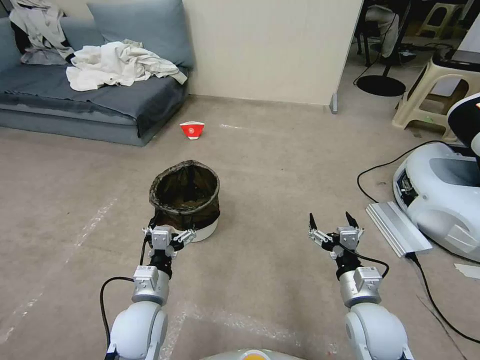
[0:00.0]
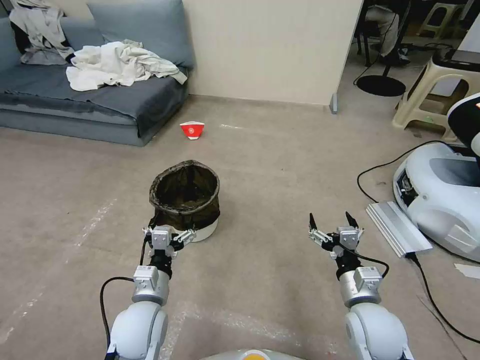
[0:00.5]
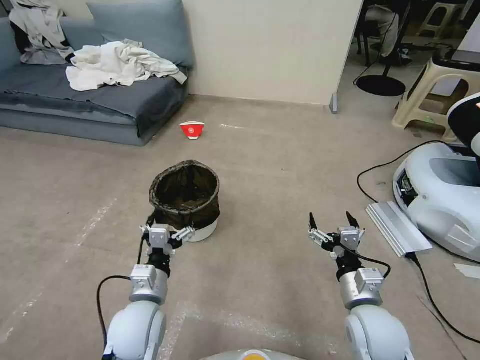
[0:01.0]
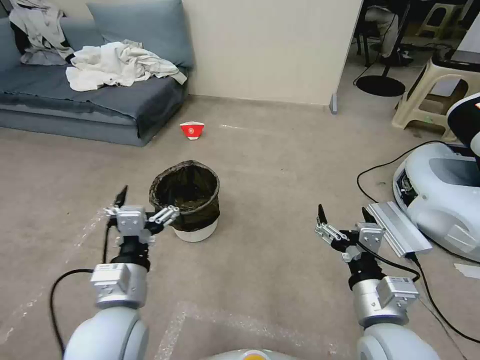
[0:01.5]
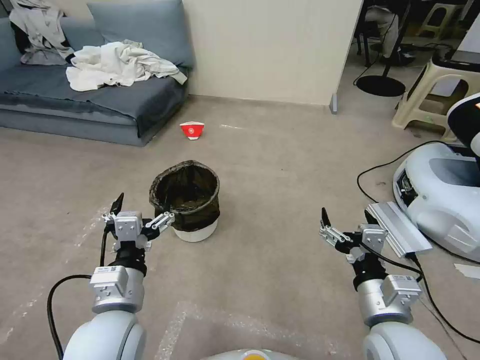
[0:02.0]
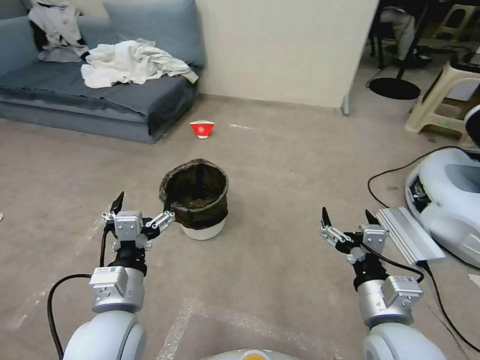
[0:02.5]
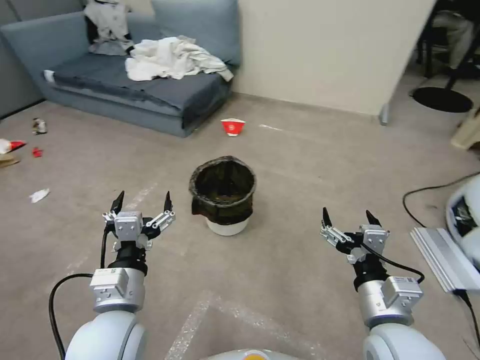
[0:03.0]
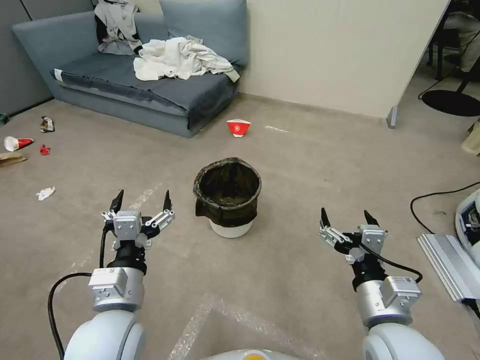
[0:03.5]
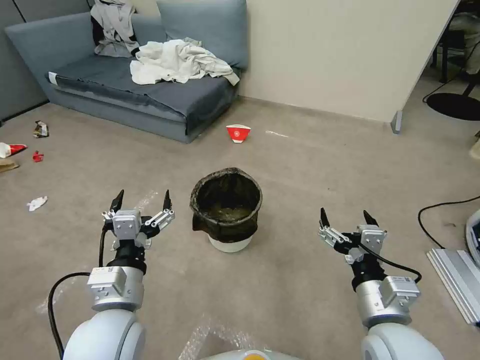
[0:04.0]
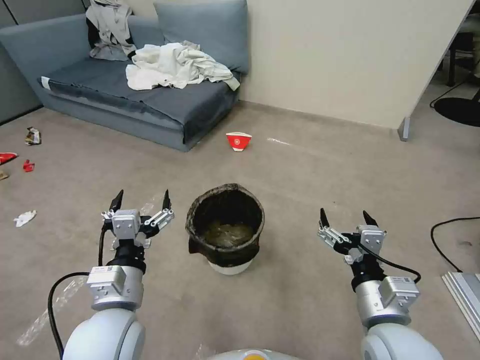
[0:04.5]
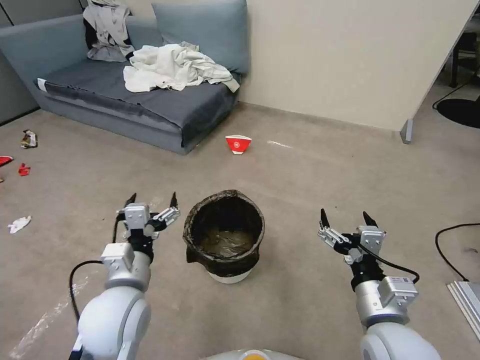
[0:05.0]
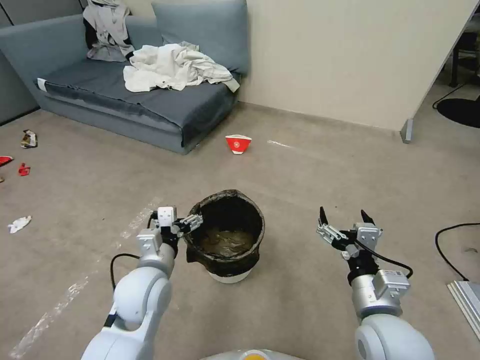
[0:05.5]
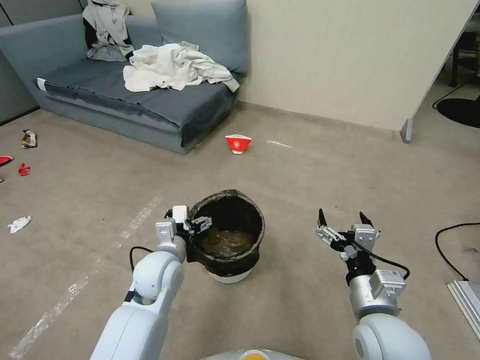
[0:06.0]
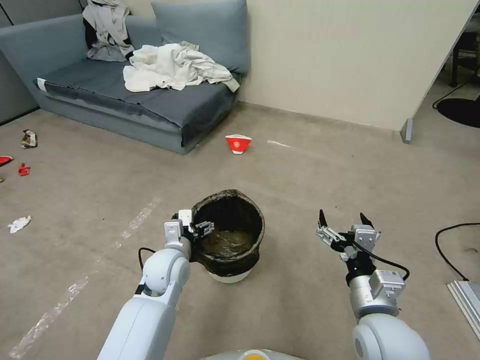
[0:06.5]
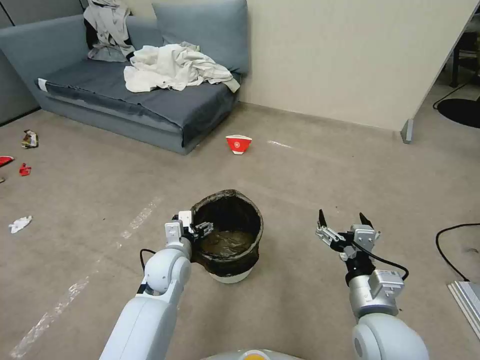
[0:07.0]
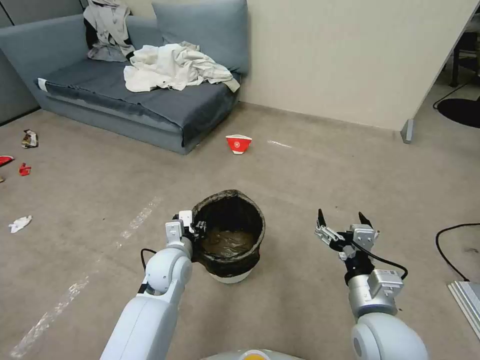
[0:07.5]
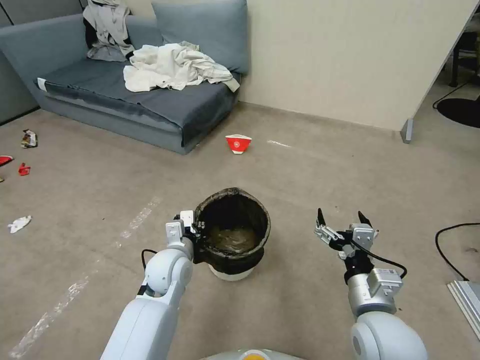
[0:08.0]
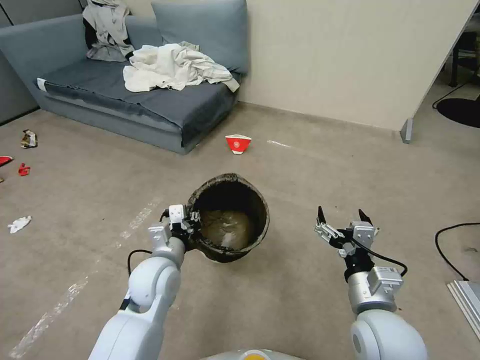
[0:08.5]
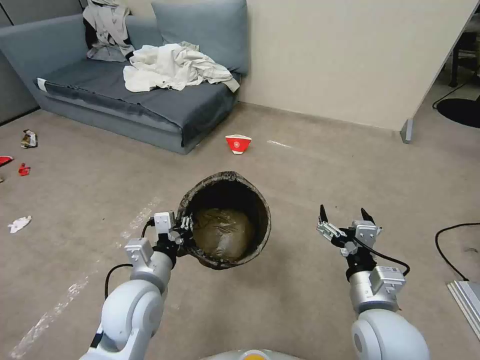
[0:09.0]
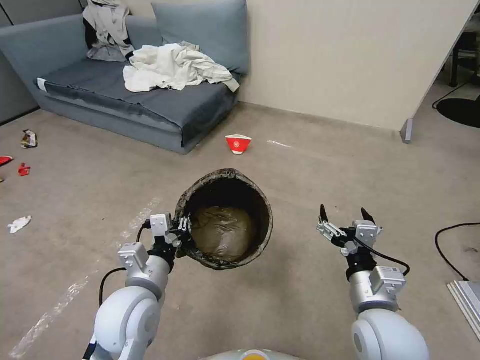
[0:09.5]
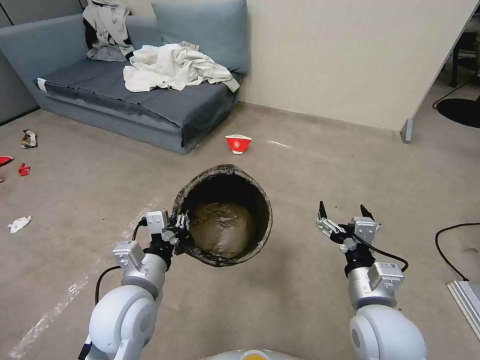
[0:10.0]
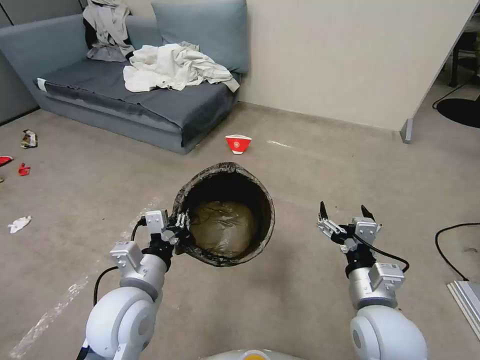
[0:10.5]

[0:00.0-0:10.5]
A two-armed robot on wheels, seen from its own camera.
Task of the whole recording: Pick up the trash can from the floor.
0:04.0 to 0:06.5: The left gripper travels forward and downward by approximately 20 cm.
0:06.5 to 0:08.5: The left gripper closes up.
0:08.5 to 0:10.5: The left gripper travels backward and upward by approximately 10 cm.

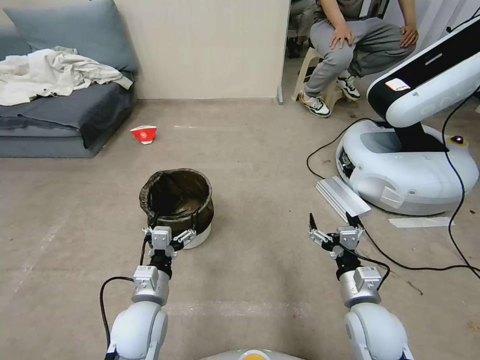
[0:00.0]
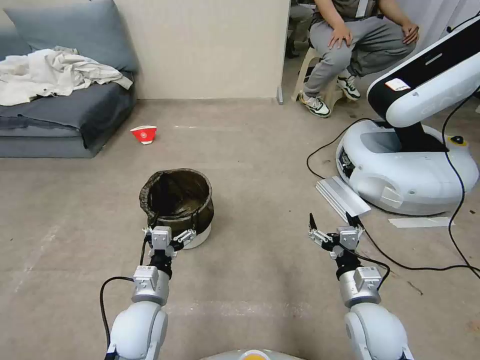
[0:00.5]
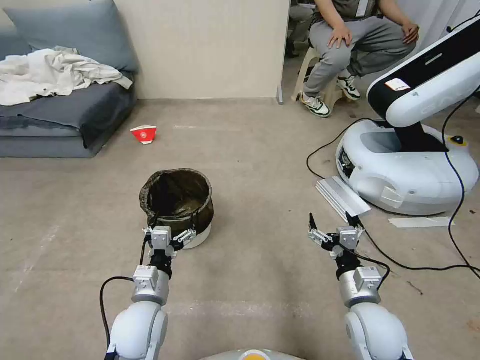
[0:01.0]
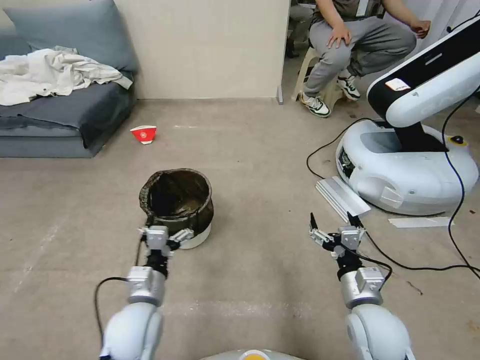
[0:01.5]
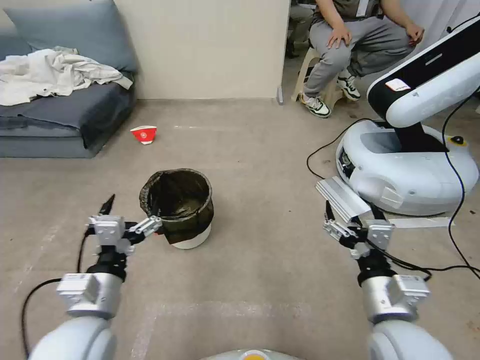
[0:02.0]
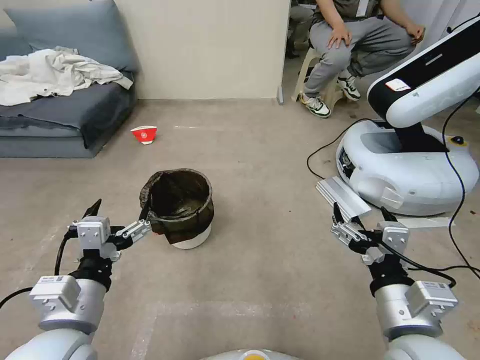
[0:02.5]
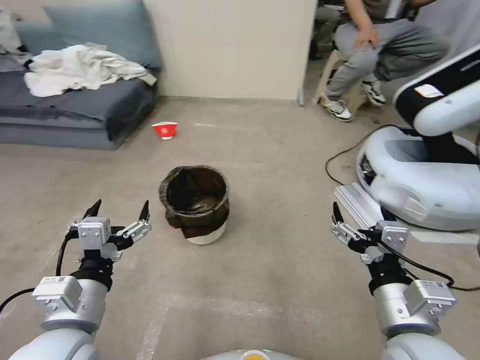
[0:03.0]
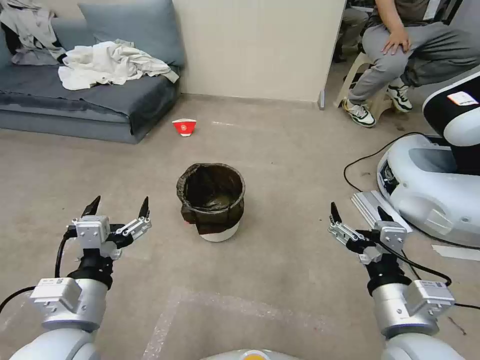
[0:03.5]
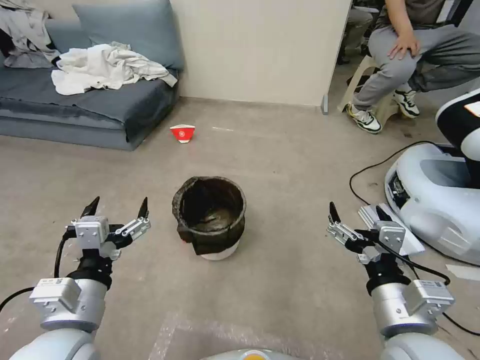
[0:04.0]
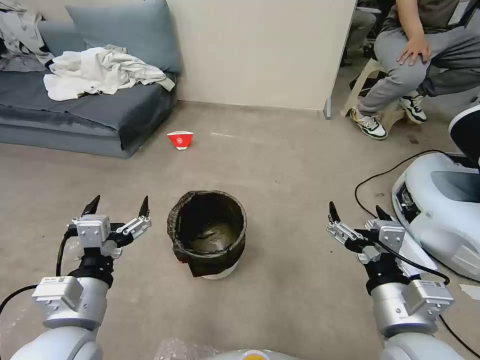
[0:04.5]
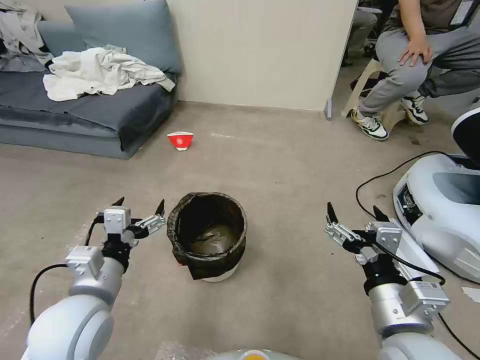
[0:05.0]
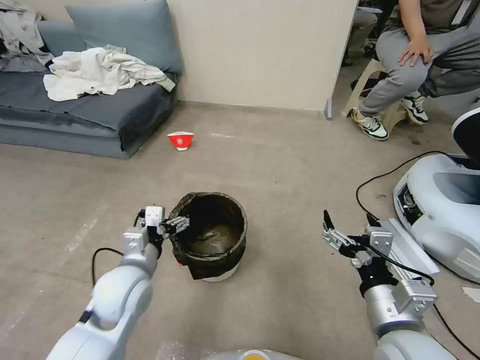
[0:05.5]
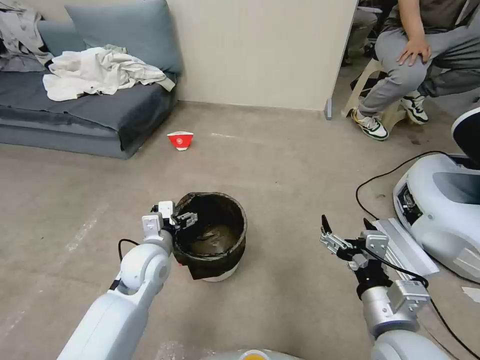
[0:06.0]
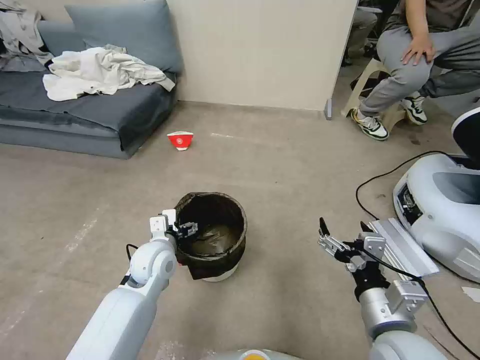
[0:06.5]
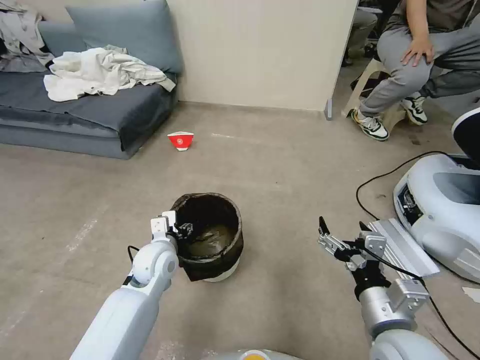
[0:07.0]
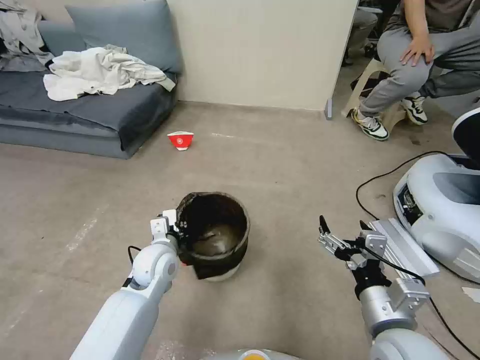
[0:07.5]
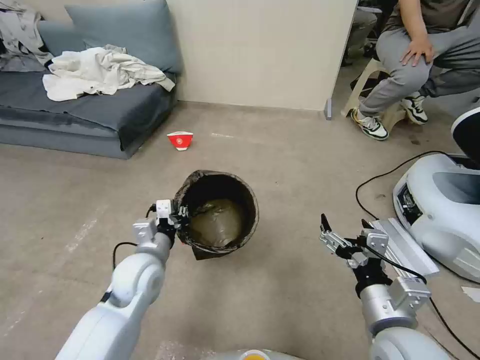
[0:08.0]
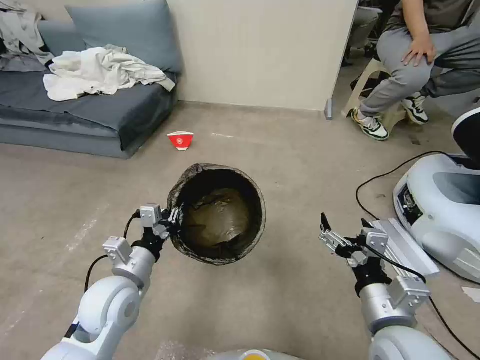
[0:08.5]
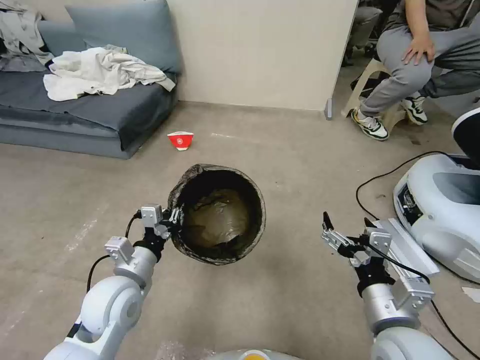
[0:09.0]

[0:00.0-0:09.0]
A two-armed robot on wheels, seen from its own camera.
Task of the whole recording: Pick up the trash can from the floor.
0:04.5 to 0:07.0: The left gripper goes some 25 cm forward and downward, and closes.
0:07.0 to 0:09.0: The left gripper travels backward and upward by approximately 10 cm, and closes up.

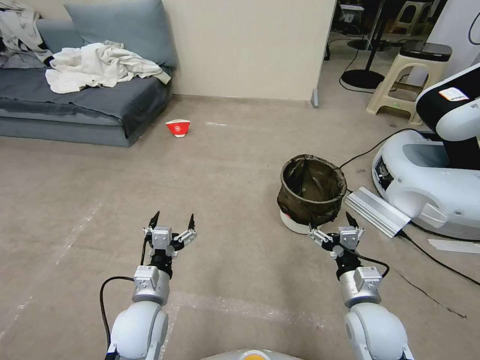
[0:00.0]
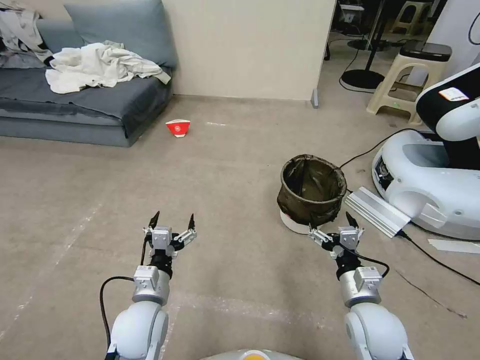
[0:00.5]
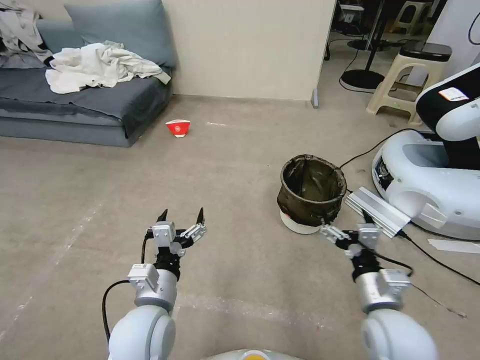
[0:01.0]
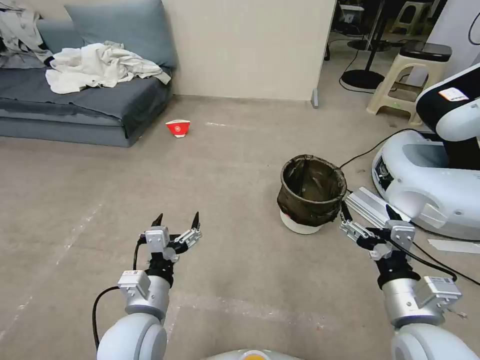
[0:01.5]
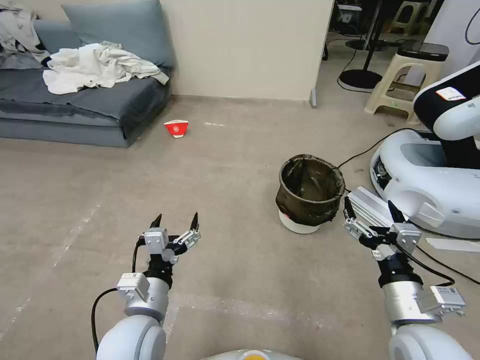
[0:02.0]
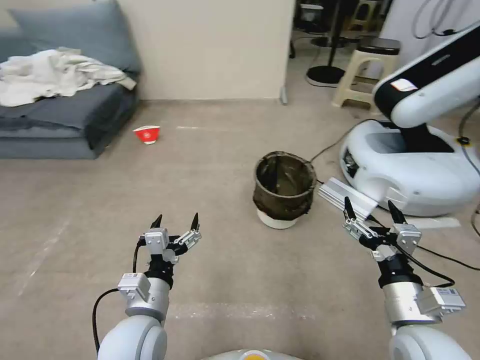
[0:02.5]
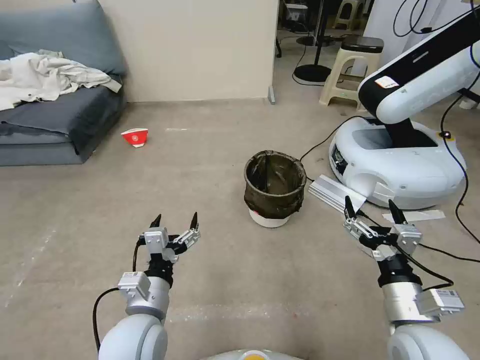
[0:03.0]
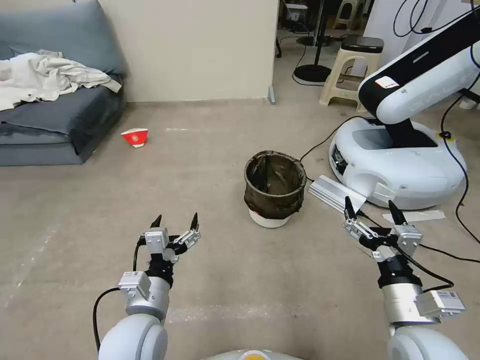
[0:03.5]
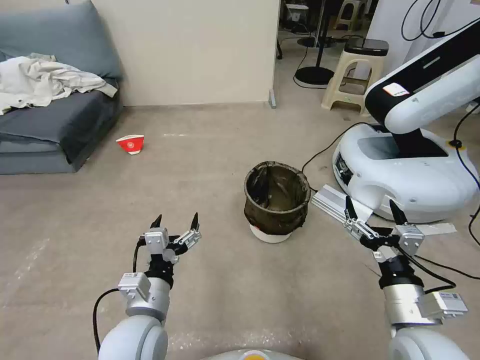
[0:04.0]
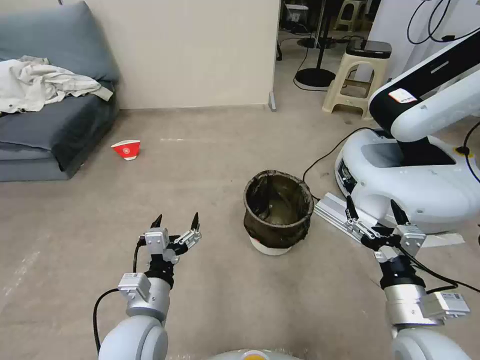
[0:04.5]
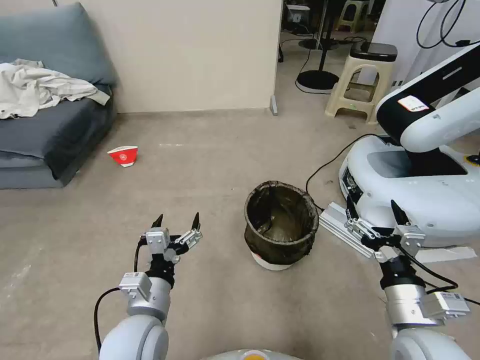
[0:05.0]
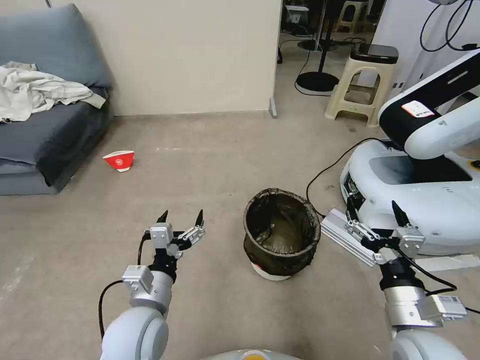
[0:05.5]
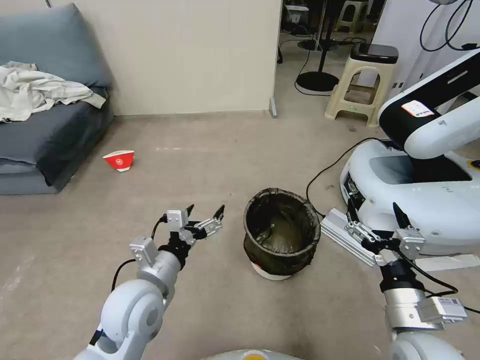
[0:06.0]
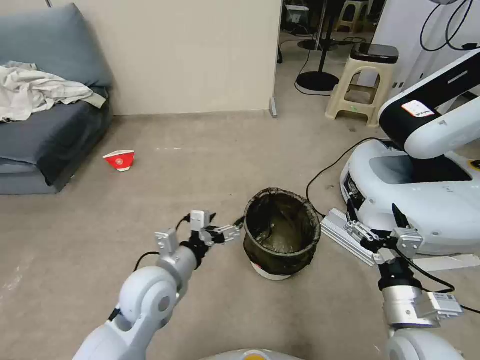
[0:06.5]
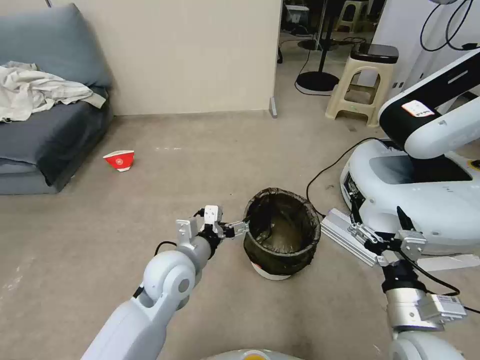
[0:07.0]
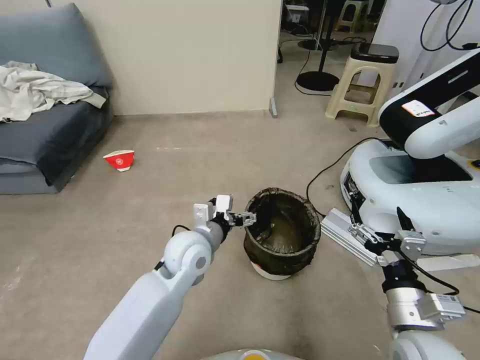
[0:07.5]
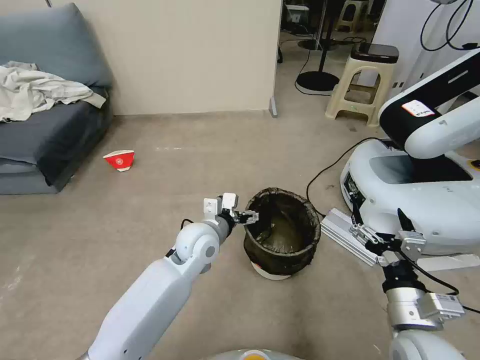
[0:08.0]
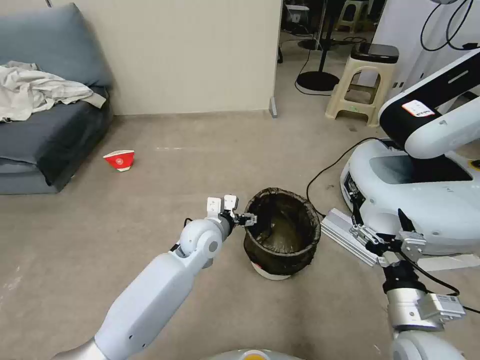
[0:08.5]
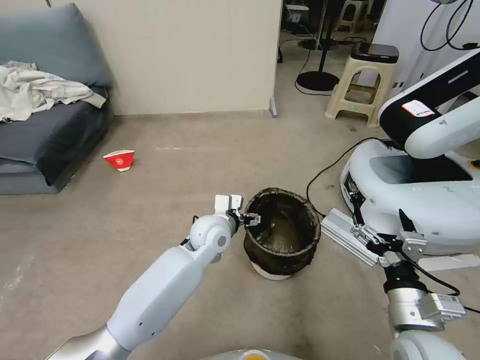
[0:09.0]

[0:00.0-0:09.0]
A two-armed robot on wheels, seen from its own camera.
Task of the whole recording: Pick up the trash can from the floor.
0:04.5 to 0:07.0: The left gripper is displaced forward by about 10 cm.
0:07.0 to 0:09.0: The left gripper is displaced forward and to the right by approximately 10 cm.
